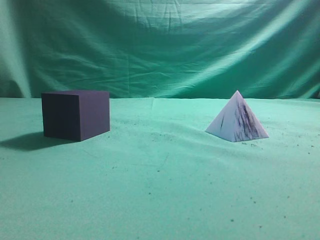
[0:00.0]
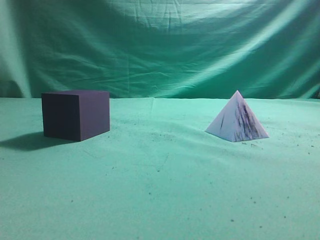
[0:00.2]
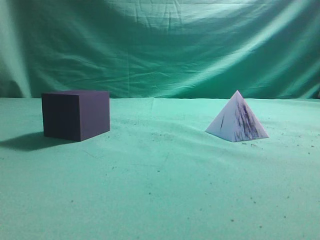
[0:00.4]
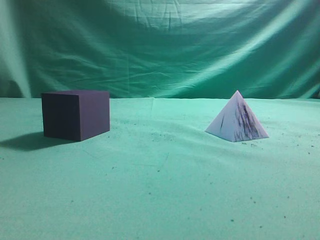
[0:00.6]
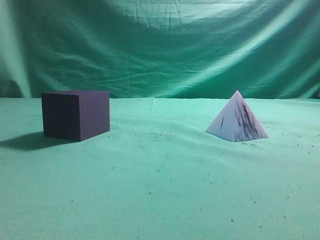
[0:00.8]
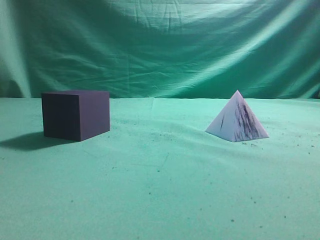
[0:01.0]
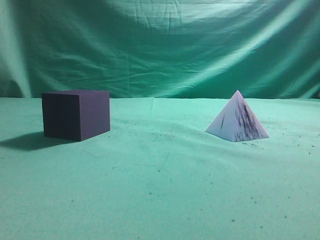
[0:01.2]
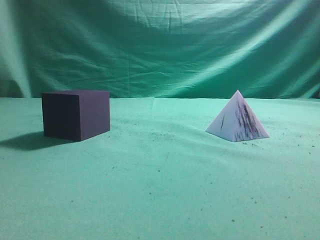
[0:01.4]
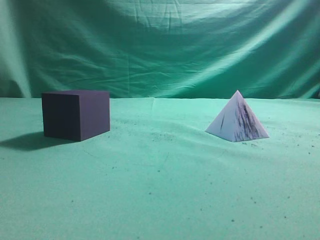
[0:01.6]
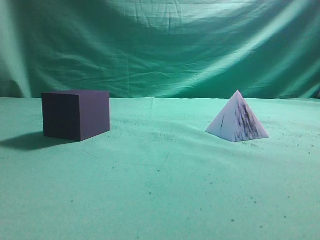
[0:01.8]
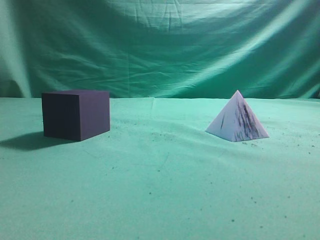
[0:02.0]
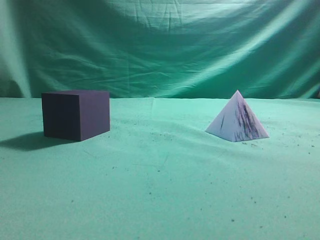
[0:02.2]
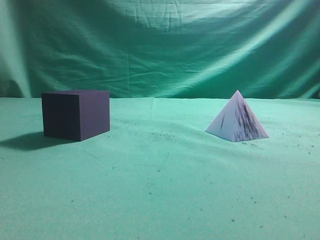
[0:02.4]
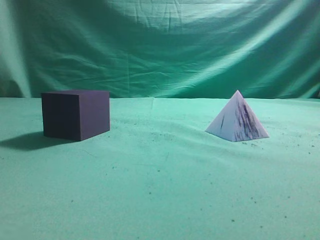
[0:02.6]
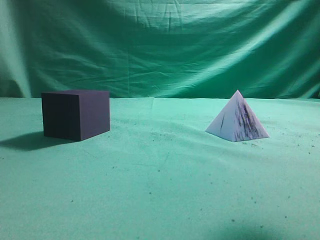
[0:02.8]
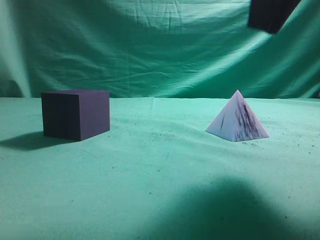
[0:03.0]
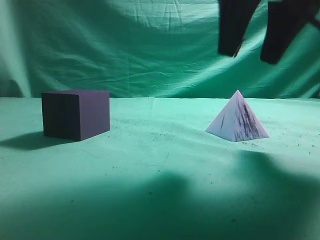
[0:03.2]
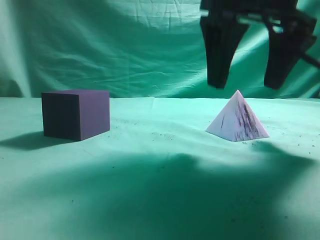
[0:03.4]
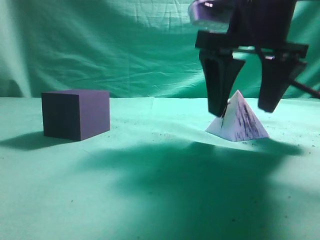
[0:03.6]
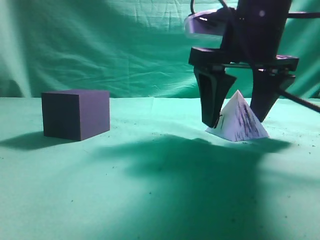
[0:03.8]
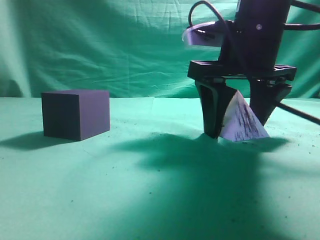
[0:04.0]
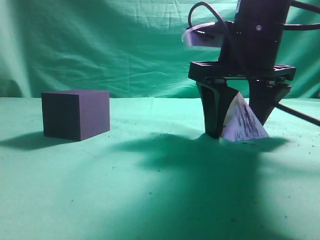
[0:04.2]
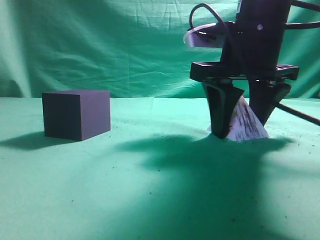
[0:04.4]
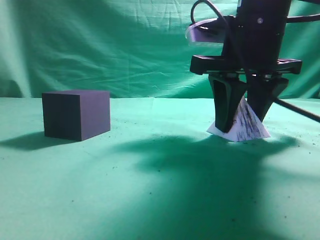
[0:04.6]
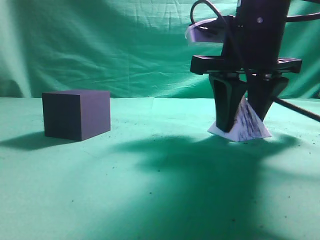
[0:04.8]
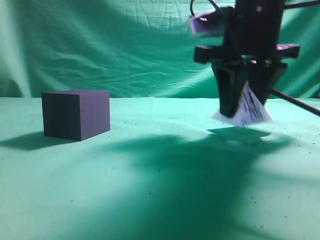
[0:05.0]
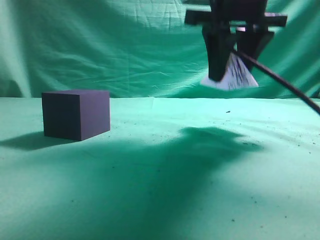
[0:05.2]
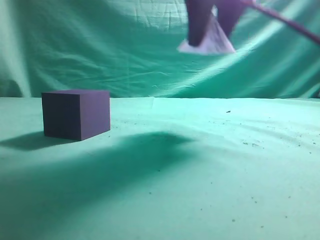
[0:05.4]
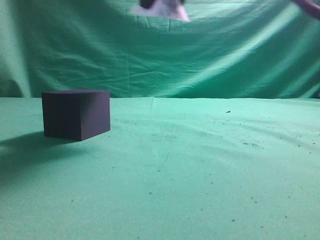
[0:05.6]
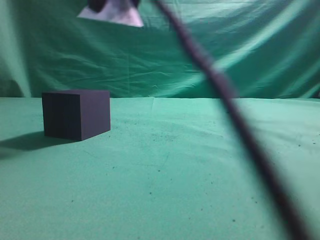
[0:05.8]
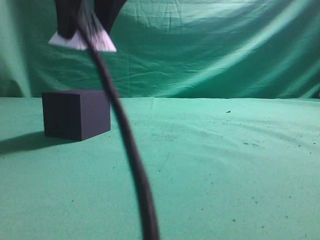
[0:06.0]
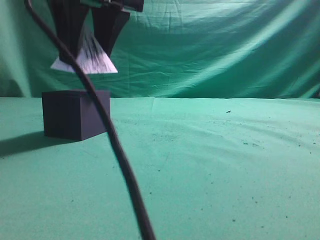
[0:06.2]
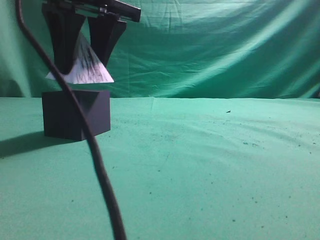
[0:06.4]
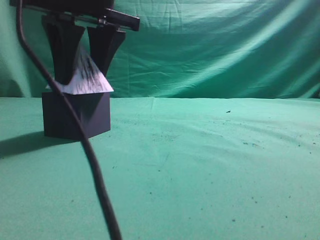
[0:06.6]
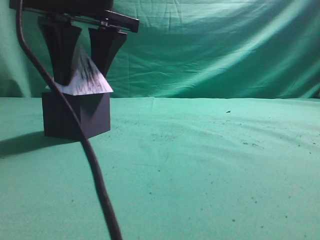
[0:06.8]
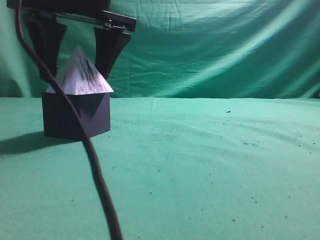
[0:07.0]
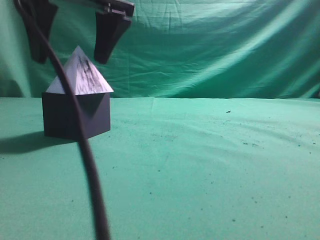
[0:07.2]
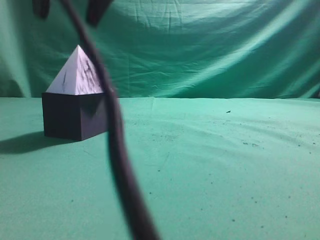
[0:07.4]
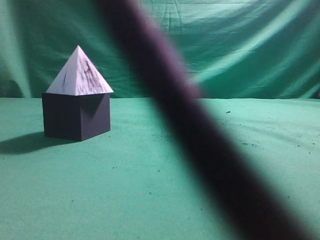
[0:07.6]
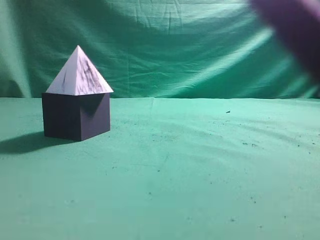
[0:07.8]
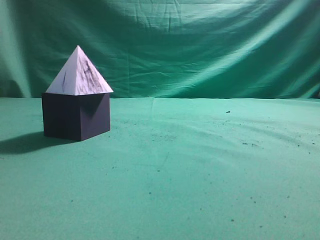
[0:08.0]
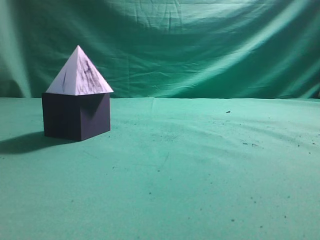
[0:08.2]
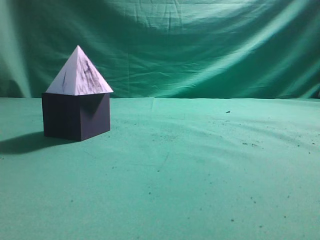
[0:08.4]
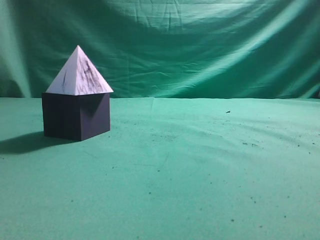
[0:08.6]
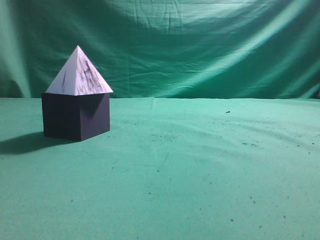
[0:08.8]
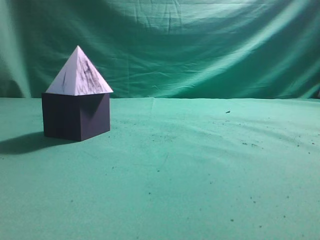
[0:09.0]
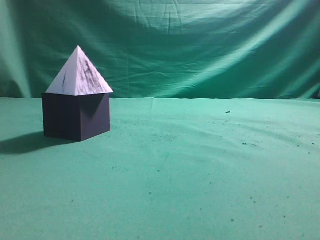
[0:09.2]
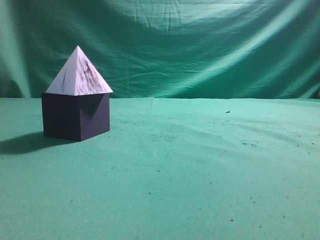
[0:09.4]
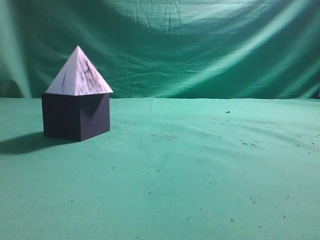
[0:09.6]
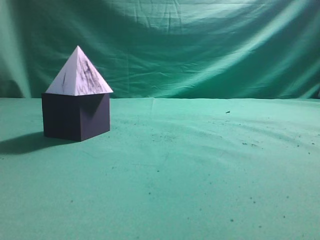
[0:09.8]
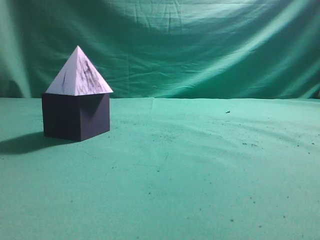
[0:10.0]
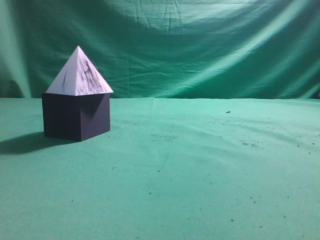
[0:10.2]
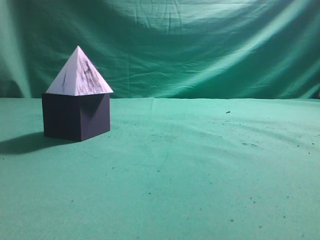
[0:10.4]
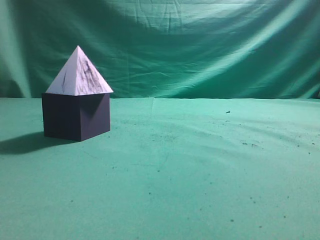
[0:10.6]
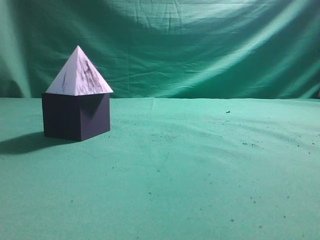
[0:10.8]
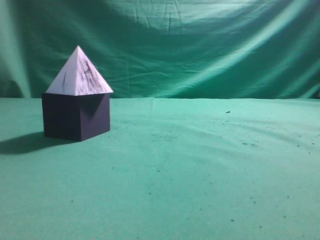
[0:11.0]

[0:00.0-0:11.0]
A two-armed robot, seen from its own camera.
Task of the whole recording: pick up the square pyramid from the table and place it on the cube block.
Step, 0:00.0 to 0:04.2: Grasp the triangular block.
Step, 0:04.4 to 0:07.2: Place the block onto the cube-shaped block.
0:01.6 to 0:03.2: The right gripper is displaced forward and to the left by roughly 25 cm, and opens.
0:03.2 to 0:04.8: The right gripper travels downward by about 10 cm.
0:04.8 to 0:06.2: The right gripper travels to the left and upward by some 20 cm.
0:06.2 to 0:07.8: The right gripper heads upward, covering about 15 cm, and closes up.
0:07.8 to 0:09.4: The right gripper is displaced to the right and backward by approximately 30 cm.
